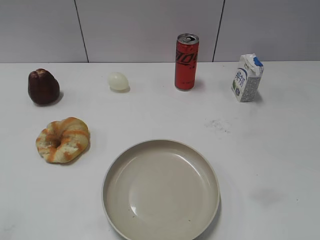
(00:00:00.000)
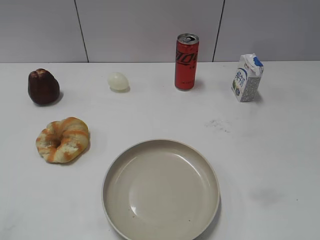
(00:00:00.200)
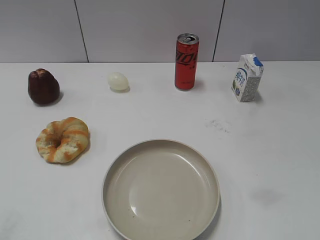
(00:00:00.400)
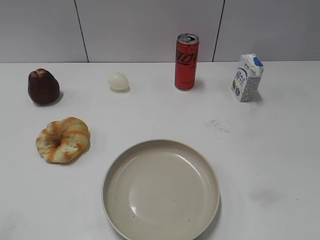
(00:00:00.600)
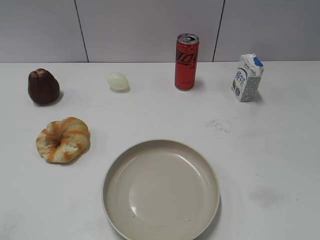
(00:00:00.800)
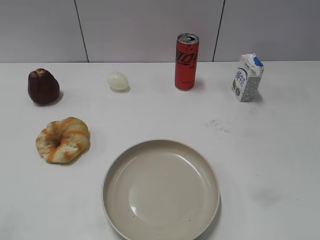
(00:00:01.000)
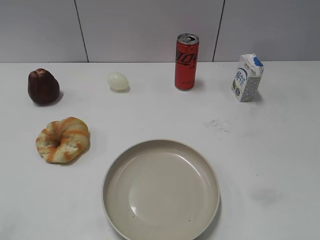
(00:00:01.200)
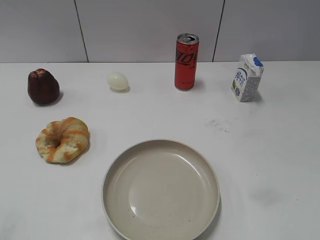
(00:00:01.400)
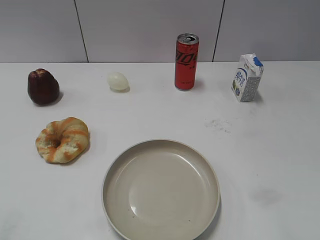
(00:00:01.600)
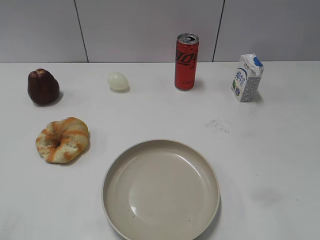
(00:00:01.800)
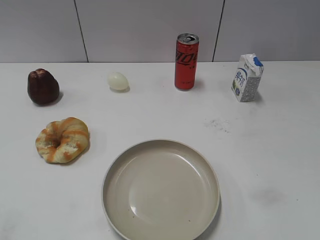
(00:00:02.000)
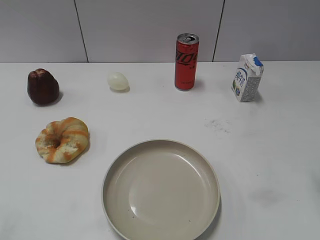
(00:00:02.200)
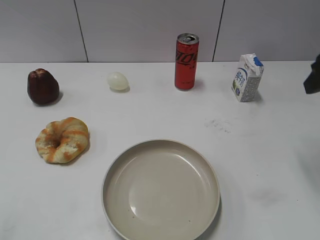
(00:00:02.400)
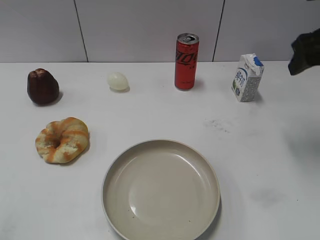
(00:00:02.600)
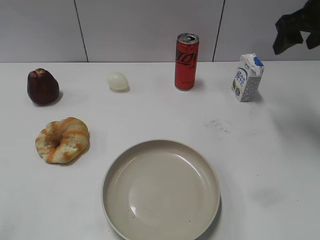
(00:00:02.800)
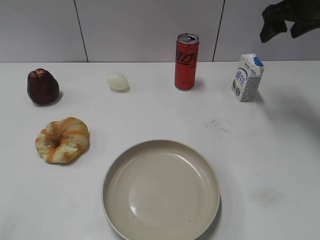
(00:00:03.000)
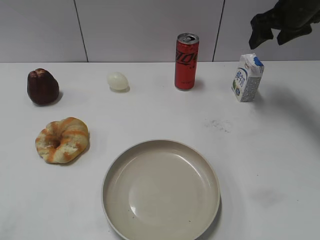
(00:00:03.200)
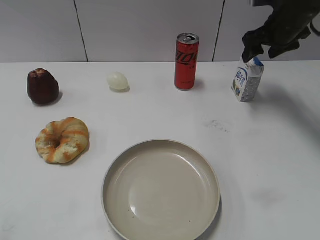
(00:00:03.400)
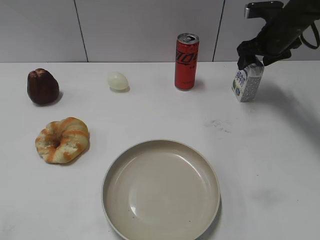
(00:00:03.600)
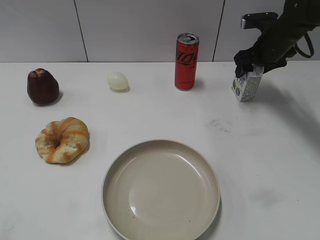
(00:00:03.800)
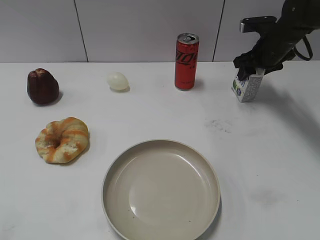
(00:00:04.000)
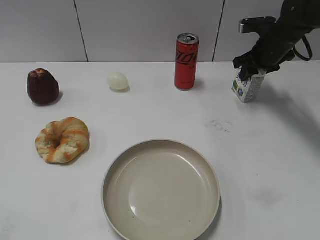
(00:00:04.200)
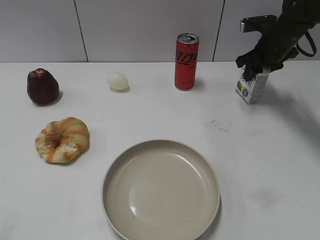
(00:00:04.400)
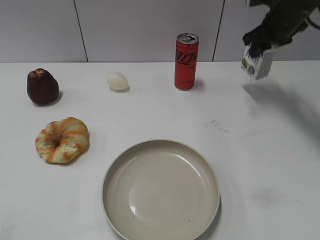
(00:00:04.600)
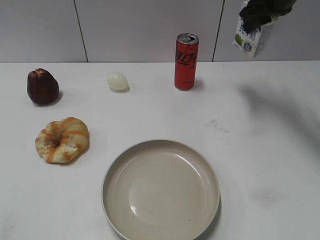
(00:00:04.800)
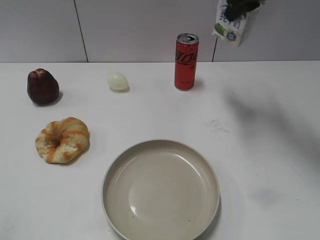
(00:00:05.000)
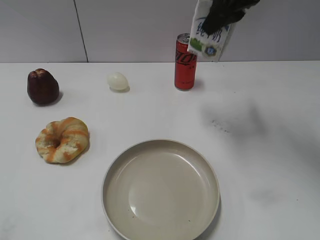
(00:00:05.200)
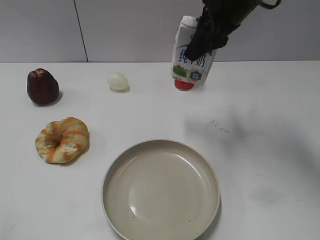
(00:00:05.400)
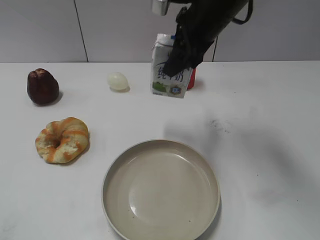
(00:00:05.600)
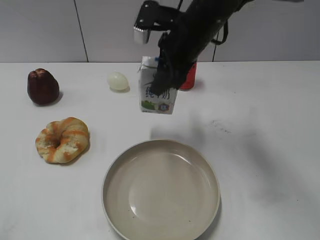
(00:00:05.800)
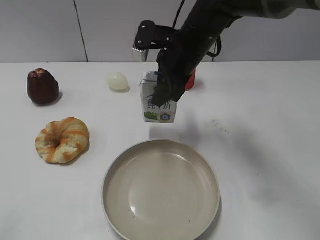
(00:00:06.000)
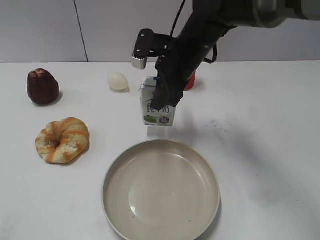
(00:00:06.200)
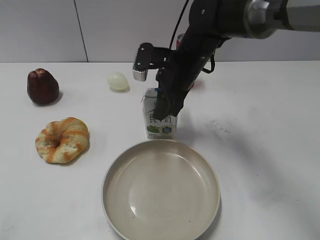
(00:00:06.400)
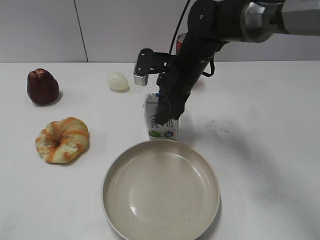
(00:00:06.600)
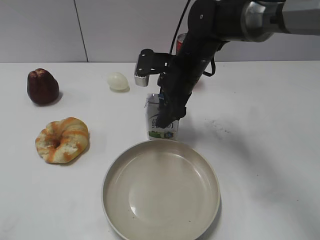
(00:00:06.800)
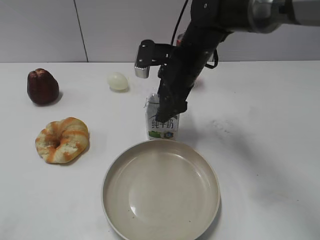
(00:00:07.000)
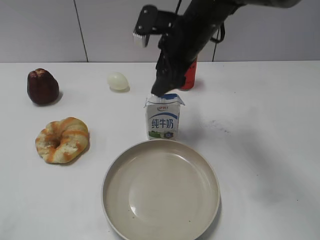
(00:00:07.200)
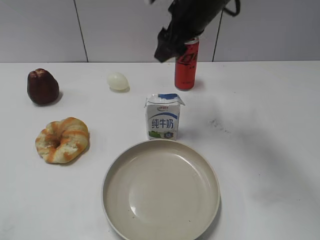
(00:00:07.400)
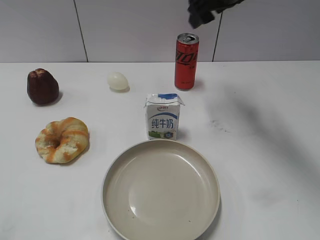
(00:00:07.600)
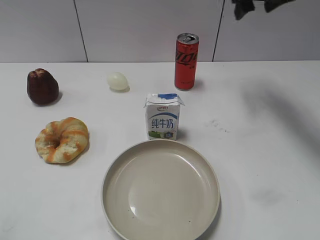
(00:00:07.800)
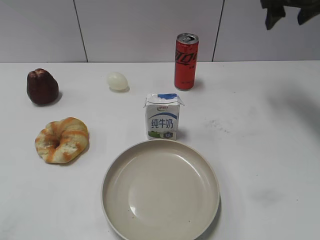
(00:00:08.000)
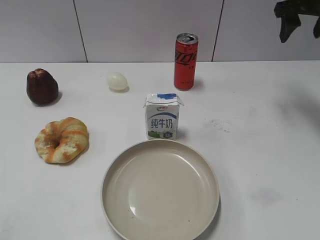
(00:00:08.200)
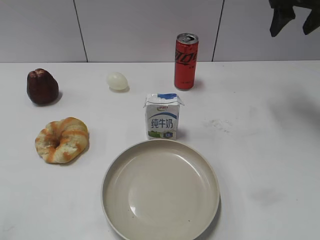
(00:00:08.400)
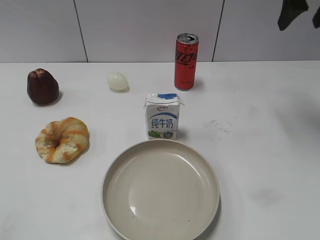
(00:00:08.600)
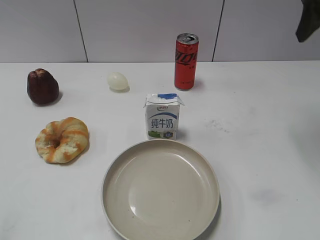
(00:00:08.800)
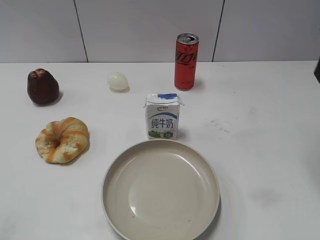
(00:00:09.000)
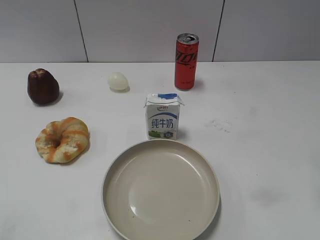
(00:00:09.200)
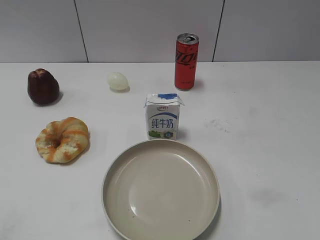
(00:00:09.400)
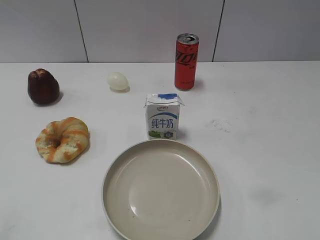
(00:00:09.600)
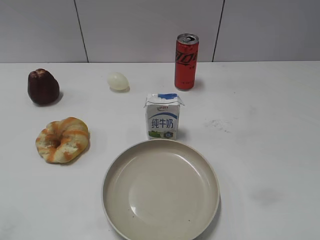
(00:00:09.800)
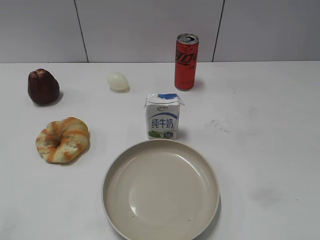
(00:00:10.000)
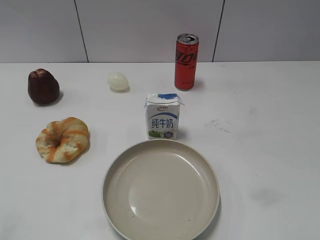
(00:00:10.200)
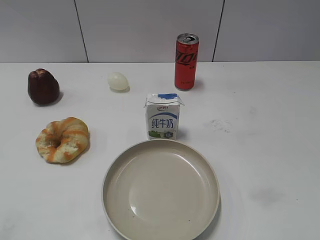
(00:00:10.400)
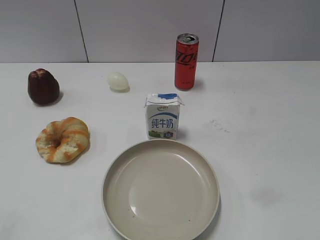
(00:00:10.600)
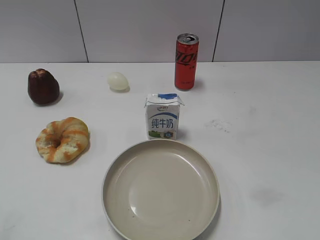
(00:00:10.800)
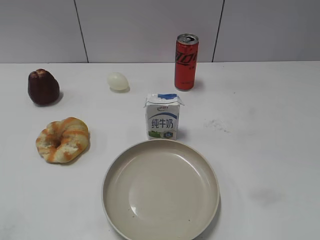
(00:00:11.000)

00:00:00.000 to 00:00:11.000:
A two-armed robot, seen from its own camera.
Step, 00:00:01.200 to 00:00:04.400: Grasp the milk with right gripper.
Step, 00:00:04.600 to 00:00:07.000: Place the milk on the table with right gripper.
00:00:01.600 to 00:00:03.200: The right gripper is displaced forward by about 40 cm.
00:00:03.200 to 00:00:04.800: The right gripper goes downward and returns, roughly 10 cm each way, and closes its fingers.
00:00:04.800 to 00:00:06.200: The right gripper moves to the left, downward and backward, about 20 cm.
00:00:06.200 to 00:00:07.800: The right gripper goes some 20 cm to the right, upward and forward, and opens its fingers.
00:00:07.800 to 00:00:09.400: The right gripper heads backward, covering roughly 30 cm.
